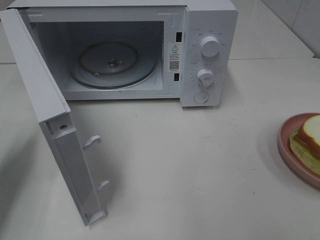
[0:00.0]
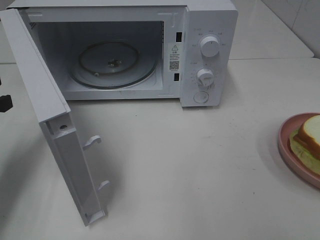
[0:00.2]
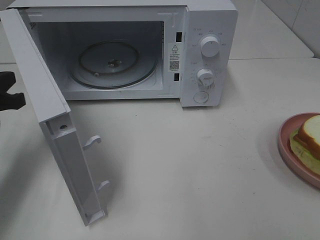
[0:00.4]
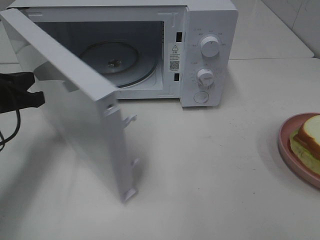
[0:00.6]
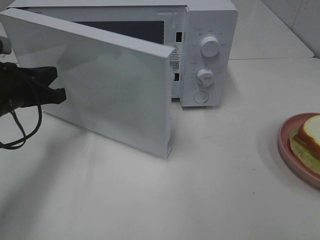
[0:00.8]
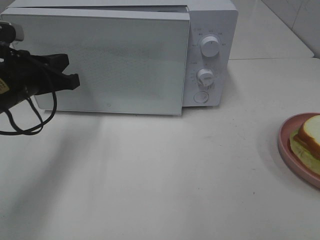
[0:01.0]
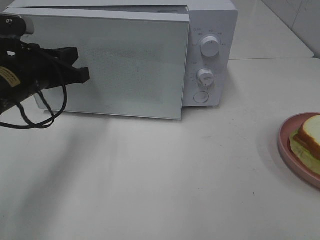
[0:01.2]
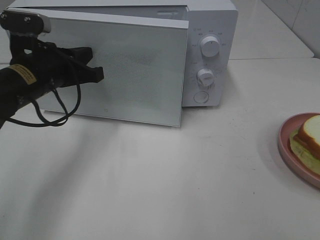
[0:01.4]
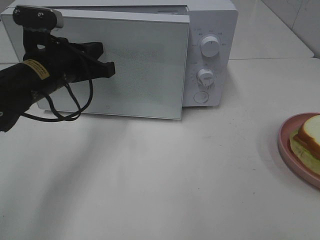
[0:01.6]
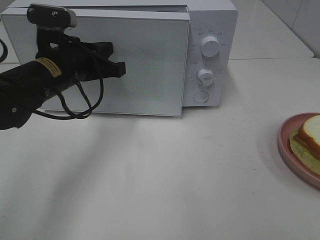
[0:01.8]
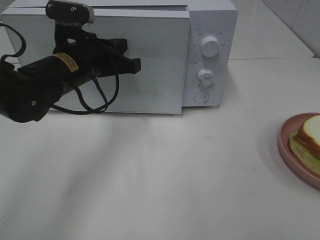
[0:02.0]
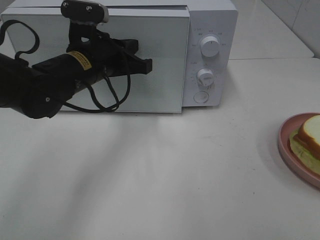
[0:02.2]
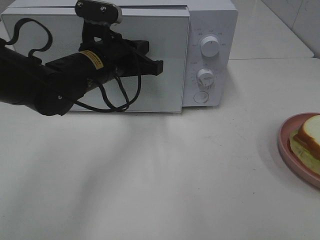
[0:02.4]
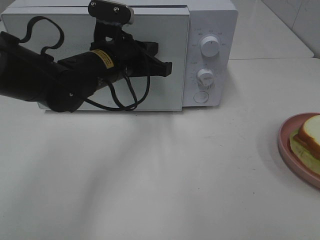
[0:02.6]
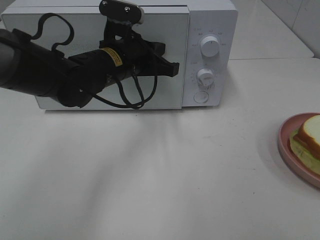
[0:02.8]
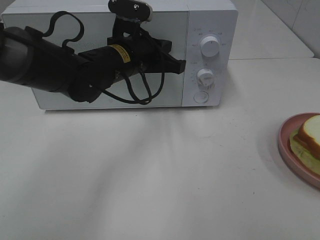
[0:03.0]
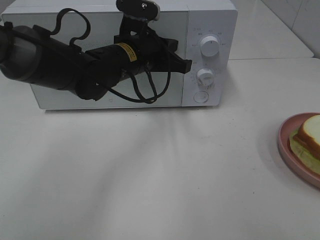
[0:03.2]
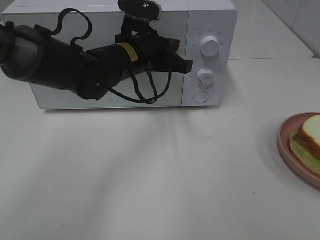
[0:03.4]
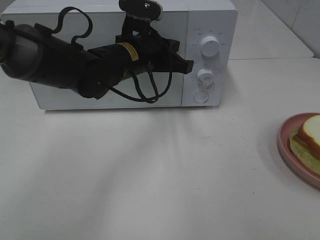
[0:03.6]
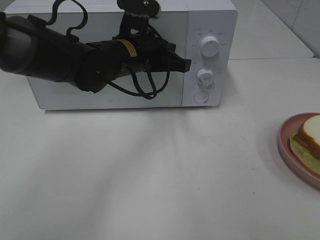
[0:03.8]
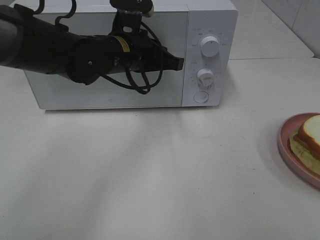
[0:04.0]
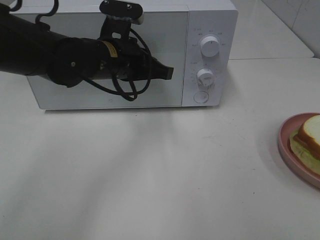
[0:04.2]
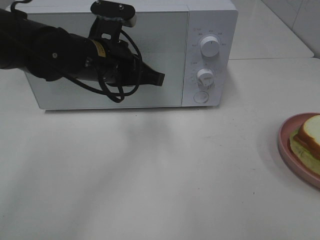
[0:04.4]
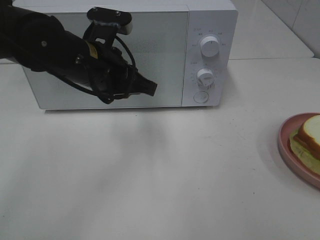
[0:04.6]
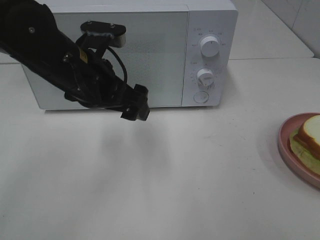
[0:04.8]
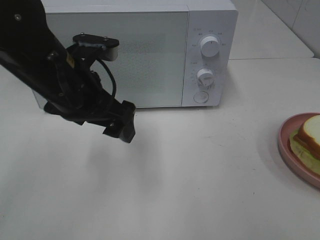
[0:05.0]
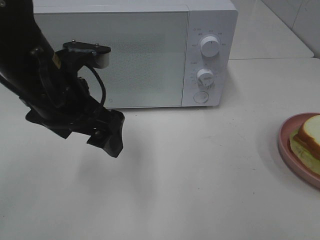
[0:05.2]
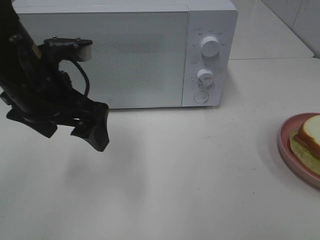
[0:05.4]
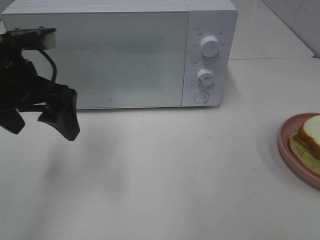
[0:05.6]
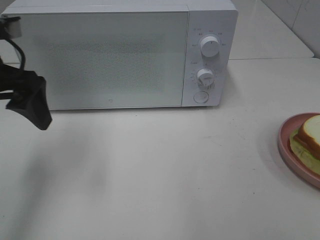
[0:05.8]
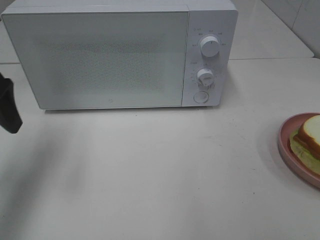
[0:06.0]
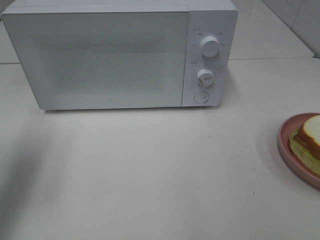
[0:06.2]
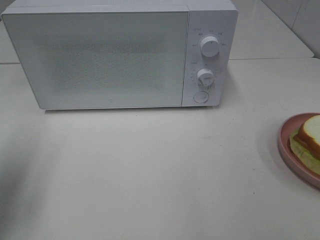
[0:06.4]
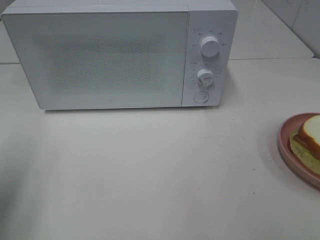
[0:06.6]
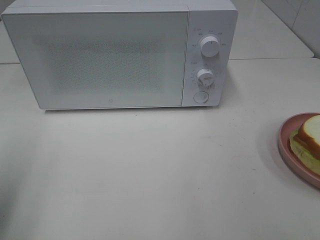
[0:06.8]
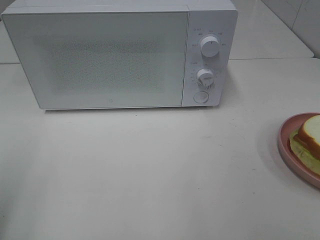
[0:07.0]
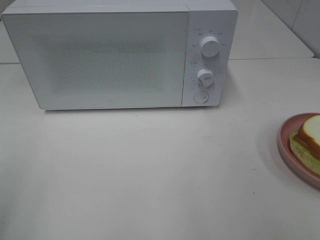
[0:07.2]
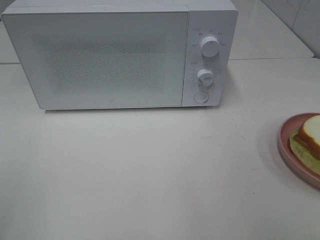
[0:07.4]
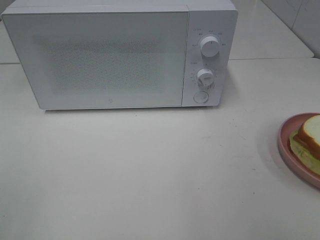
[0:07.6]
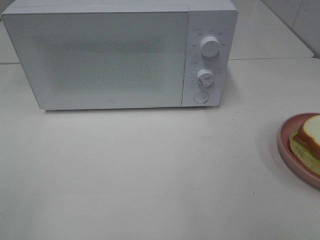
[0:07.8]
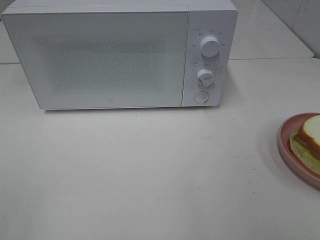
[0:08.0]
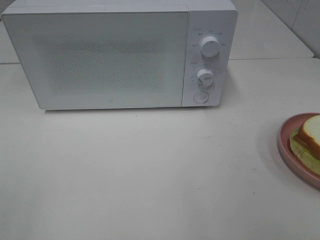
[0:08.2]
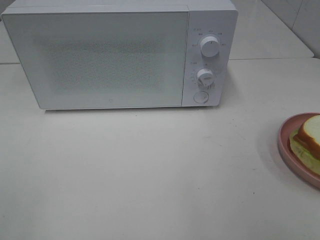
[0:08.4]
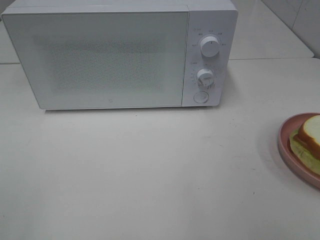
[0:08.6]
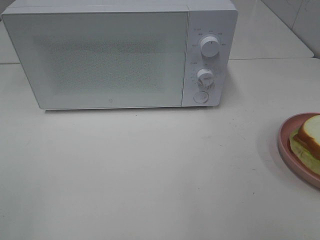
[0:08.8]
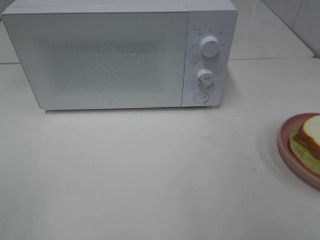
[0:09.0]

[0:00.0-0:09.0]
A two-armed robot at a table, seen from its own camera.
Task of the whole recording: Heat Sandwich.
Step, 0:00.0 to 0:04.6: Left hand: close the microwave door.
0:00.0 to 0:01.6: The left gripper moves to the right and forward, roughly 15 cm.
0:01.6 to 0:03.0: The left gripper goes roughly 10 cm to the right.
0:03.0 to 0:04.4: The left gripper ends up approximately 5 cm from where it was.
0:04.4 to 0:06.0: The left gripper travels to the left by approximately 20 cm, and opens.
0:06.0 to 0:07.6: The left gripper shifts about 25 cm backward.
0:07.6 to 0:09.0: Both grippers stay put.
